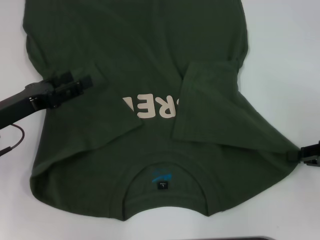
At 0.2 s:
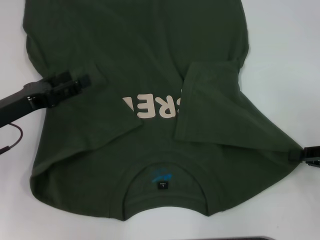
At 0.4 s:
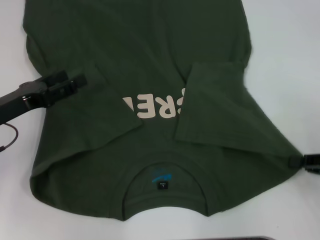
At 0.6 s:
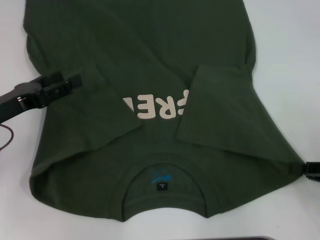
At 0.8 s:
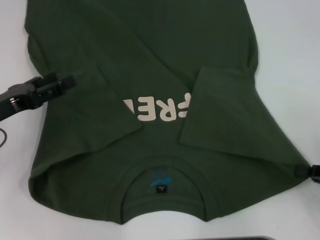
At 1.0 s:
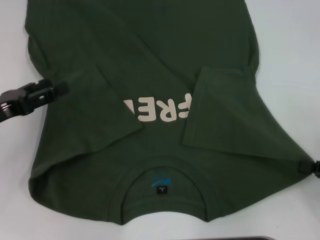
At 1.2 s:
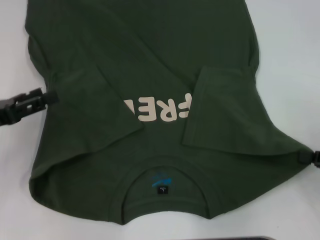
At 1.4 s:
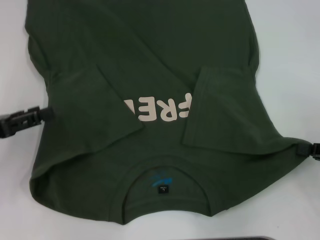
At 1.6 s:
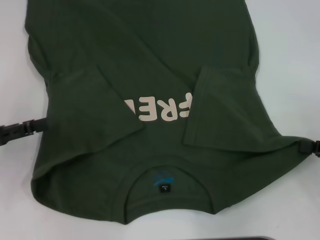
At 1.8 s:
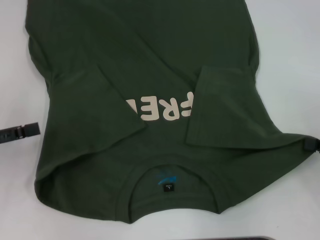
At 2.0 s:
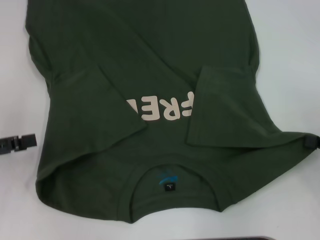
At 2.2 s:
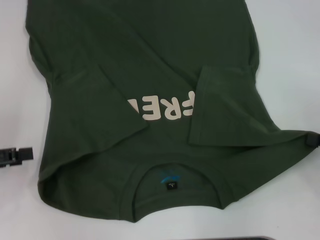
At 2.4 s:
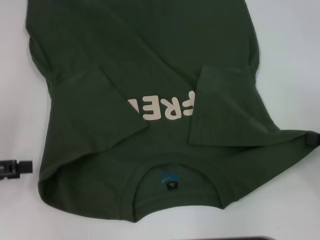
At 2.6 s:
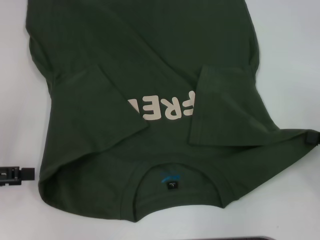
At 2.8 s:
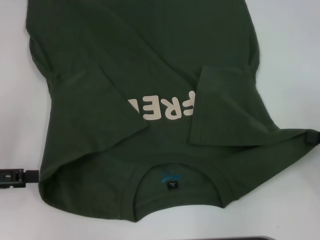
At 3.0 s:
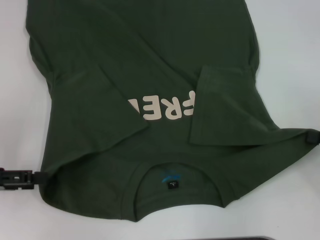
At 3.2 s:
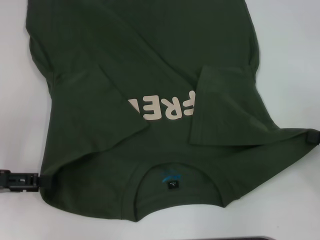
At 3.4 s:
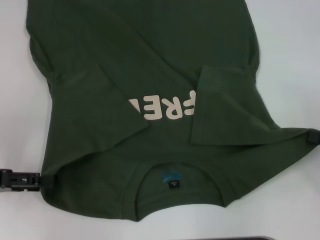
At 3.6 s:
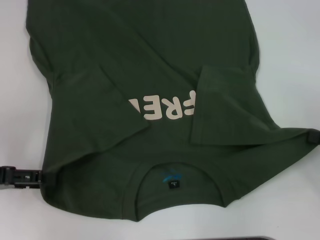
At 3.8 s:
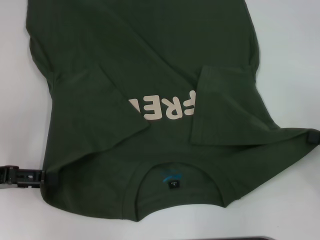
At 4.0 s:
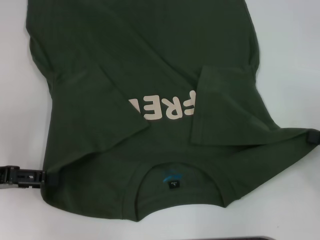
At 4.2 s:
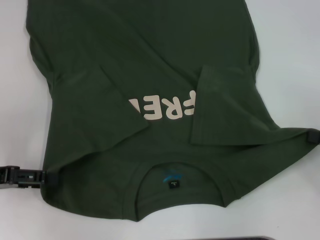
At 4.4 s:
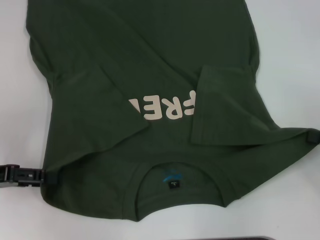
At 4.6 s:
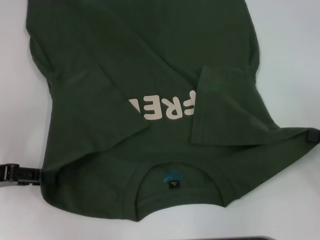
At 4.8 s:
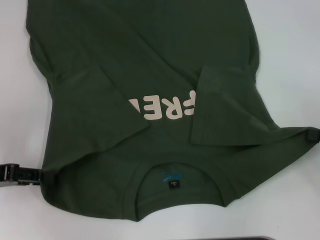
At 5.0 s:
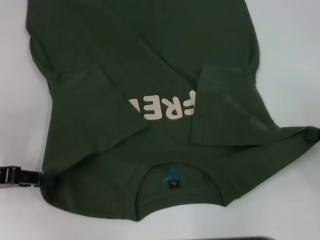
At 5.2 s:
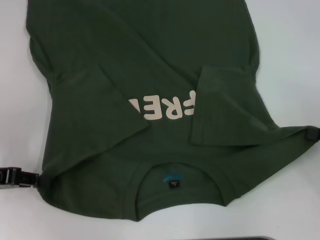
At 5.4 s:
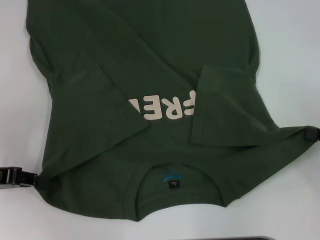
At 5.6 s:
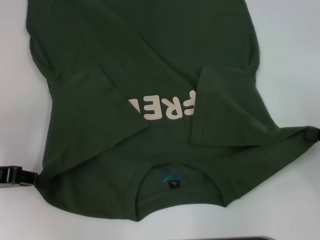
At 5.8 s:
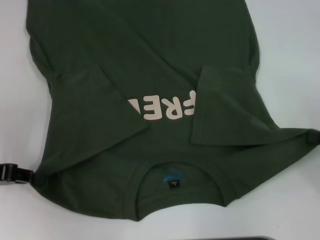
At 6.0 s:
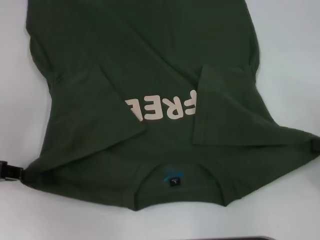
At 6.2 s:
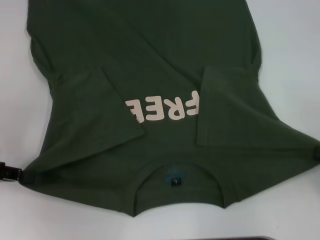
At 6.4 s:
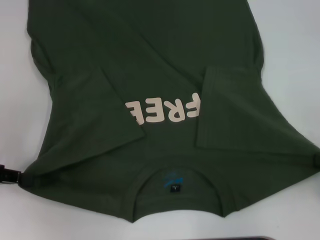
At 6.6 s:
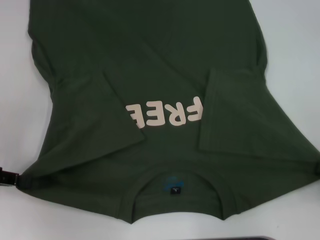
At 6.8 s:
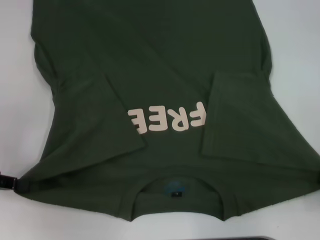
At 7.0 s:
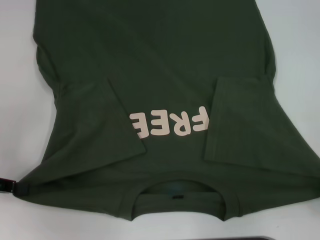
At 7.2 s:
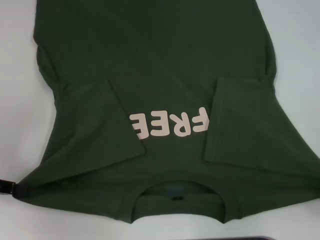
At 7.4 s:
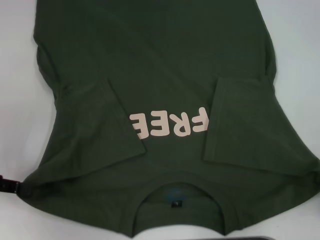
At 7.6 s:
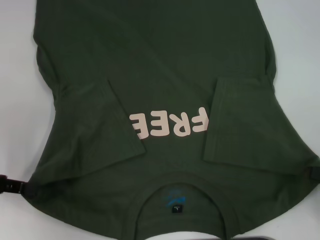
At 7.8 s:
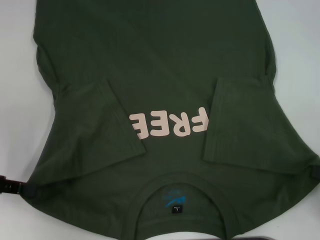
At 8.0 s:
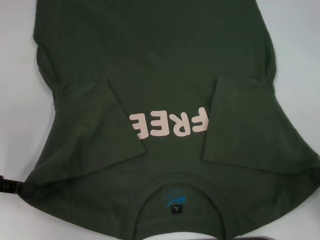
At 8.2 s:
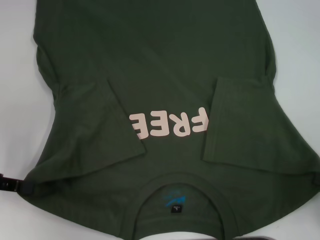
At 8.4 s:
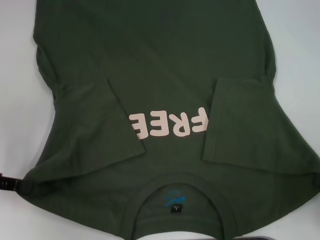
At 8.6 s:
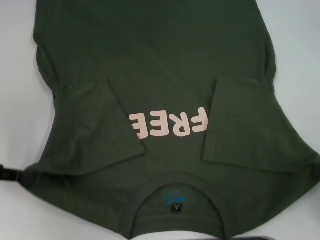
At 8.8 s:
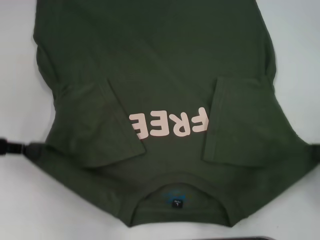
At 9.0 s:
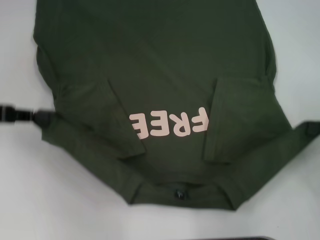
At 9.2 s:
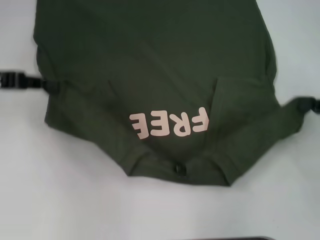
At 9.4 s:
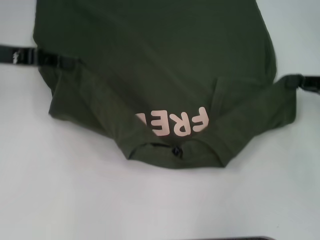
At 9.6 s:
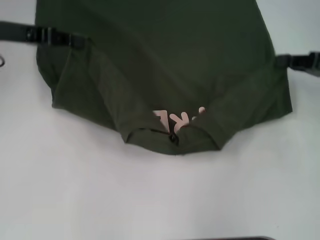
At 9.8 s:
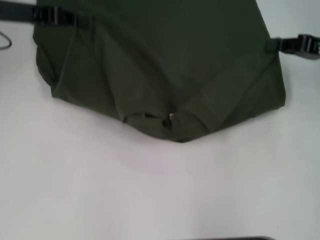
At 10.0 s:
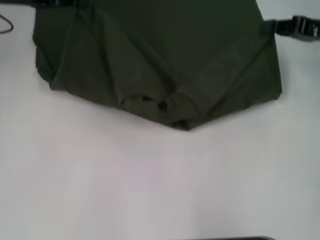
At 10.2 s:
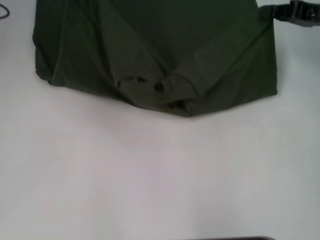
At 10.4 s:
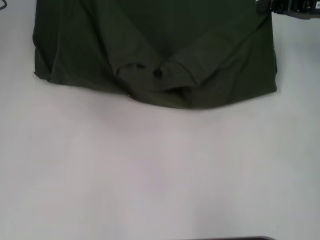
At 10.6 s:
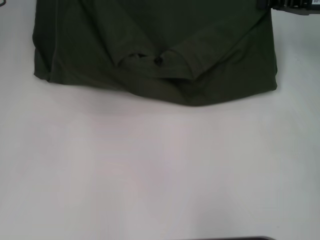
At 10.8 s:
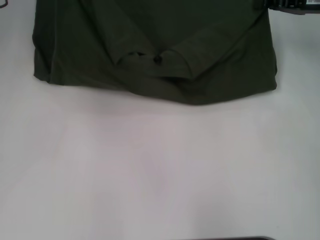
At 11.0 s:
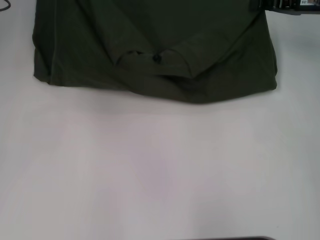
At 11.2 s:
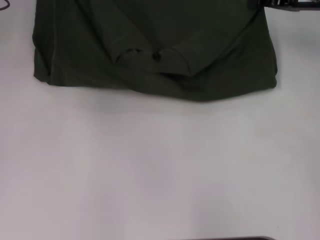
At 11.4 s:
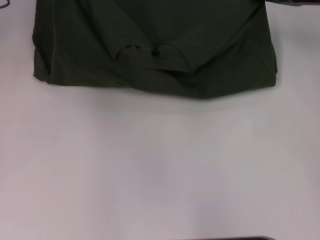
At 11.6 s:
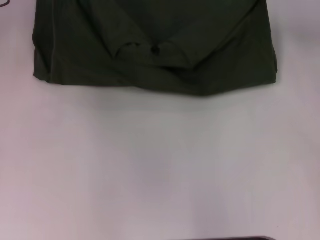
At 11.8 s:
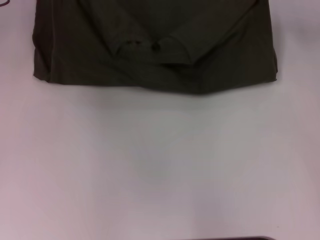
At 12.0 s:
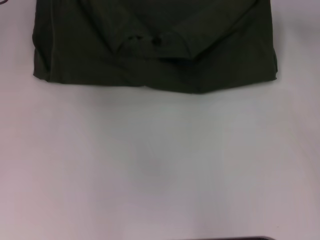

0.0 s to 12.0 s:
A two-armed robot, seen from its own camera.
Step, 0.2 to 5.2 s: Grab the bottom left corner with your left hand.
0.0 to 1.6 s: The left gripper moves to the left, roughly 5 cm.
3.0 to 4.4 s: The grippers make only small movements.
4.4 to 6.0 s: The left gripper closes up.
7.6 to 9.0 s: The left gripper moves approximately 5 cm. Meanwhile the right gripper travels forward by about 5 cm.
9.0 to 10.4 s: The right gripper heads forward and upward, covering some 20 cm. Meanwhile the left gripper heads forward, upward and to the right, covering approximately 15 cm.

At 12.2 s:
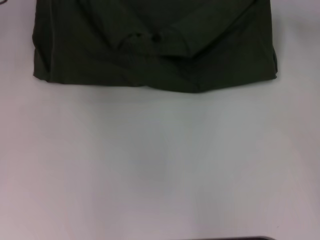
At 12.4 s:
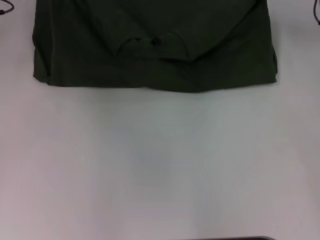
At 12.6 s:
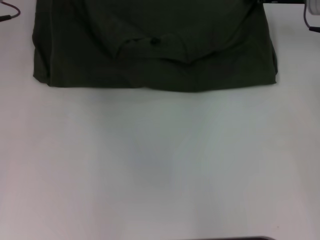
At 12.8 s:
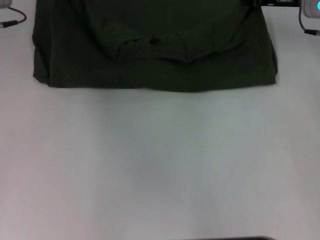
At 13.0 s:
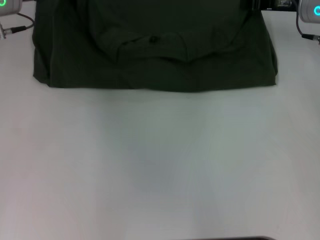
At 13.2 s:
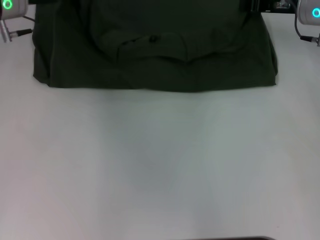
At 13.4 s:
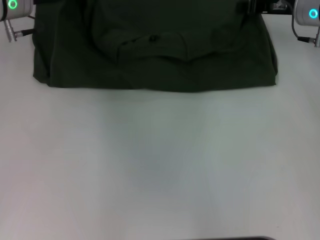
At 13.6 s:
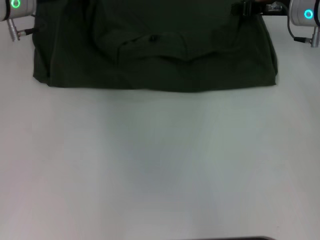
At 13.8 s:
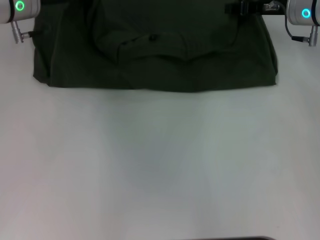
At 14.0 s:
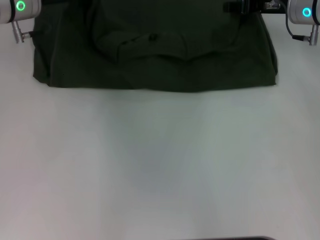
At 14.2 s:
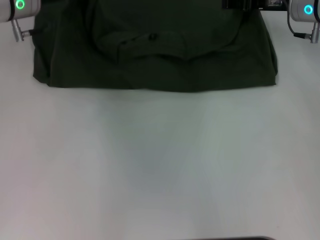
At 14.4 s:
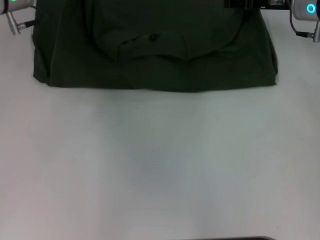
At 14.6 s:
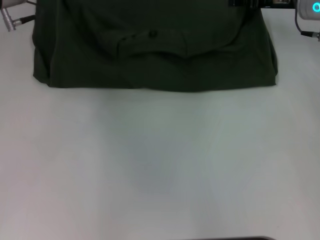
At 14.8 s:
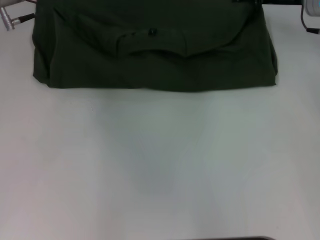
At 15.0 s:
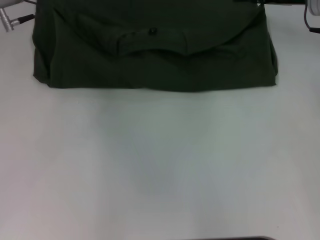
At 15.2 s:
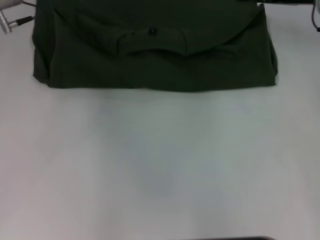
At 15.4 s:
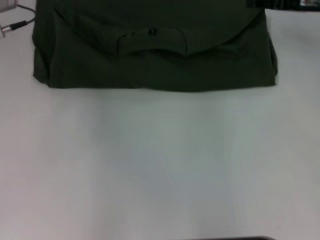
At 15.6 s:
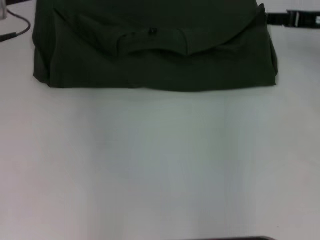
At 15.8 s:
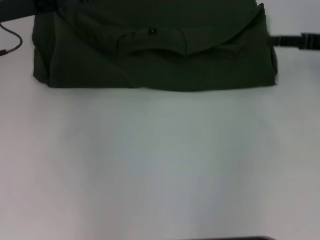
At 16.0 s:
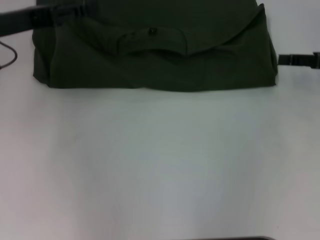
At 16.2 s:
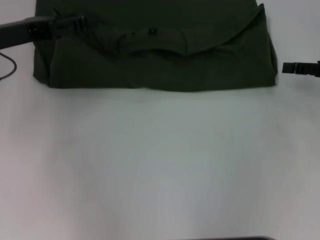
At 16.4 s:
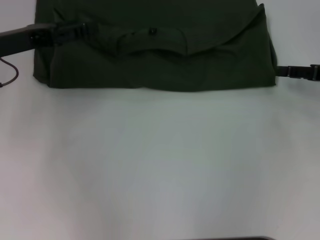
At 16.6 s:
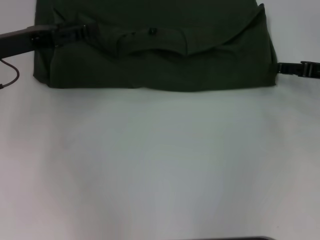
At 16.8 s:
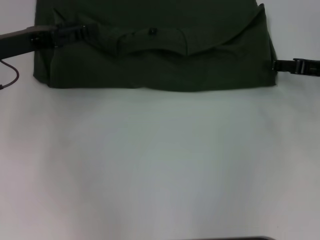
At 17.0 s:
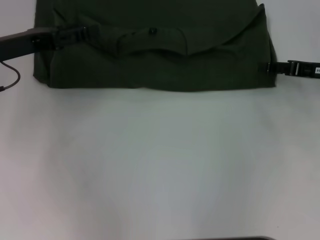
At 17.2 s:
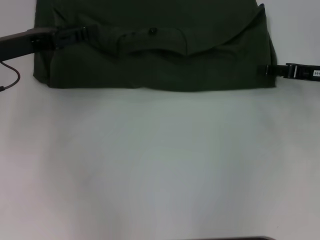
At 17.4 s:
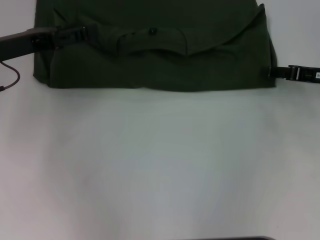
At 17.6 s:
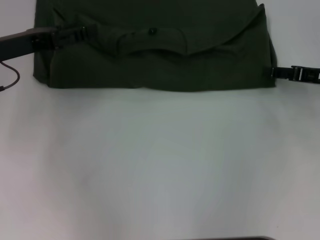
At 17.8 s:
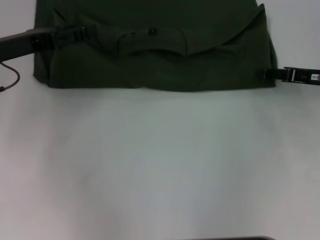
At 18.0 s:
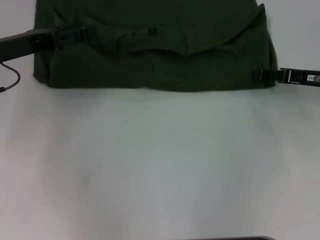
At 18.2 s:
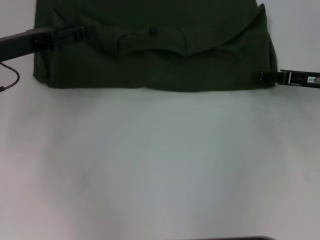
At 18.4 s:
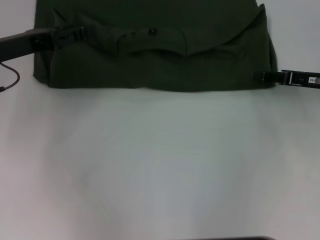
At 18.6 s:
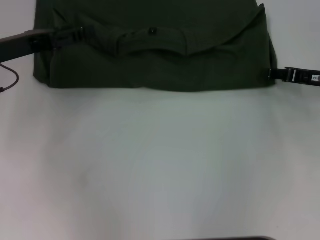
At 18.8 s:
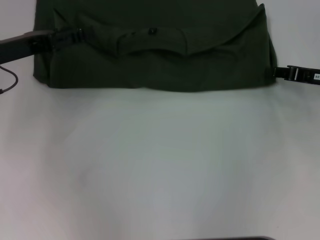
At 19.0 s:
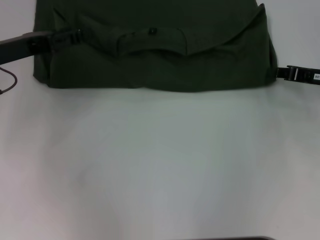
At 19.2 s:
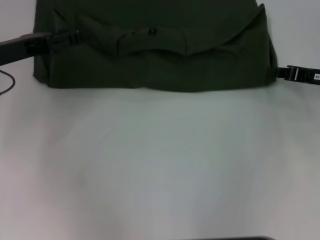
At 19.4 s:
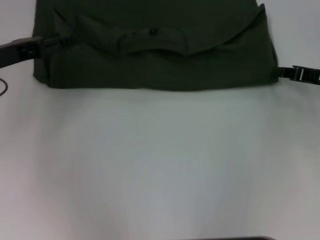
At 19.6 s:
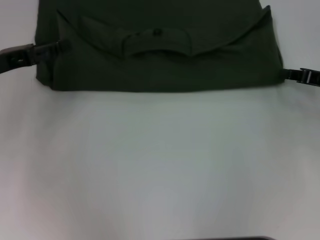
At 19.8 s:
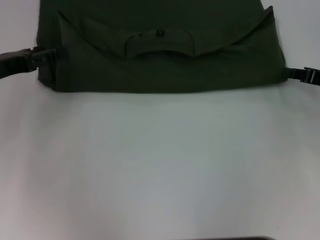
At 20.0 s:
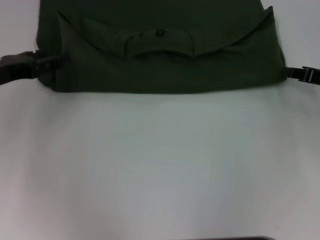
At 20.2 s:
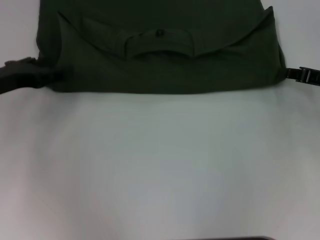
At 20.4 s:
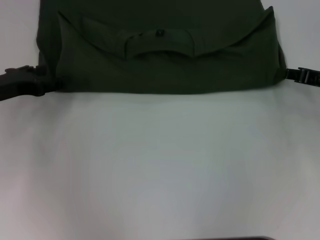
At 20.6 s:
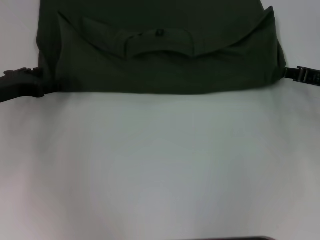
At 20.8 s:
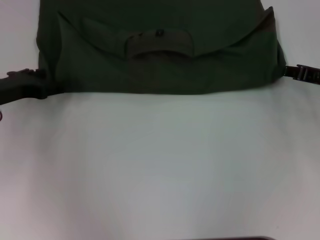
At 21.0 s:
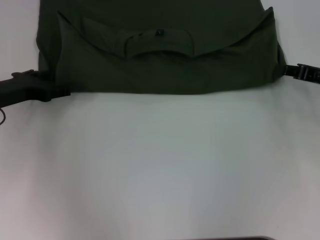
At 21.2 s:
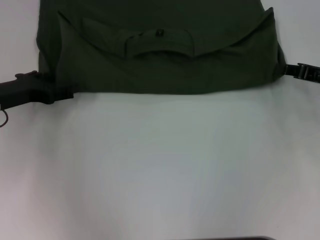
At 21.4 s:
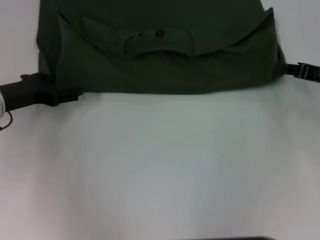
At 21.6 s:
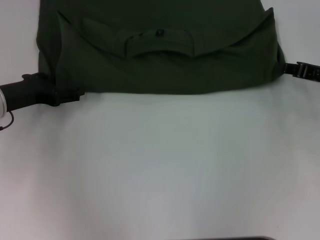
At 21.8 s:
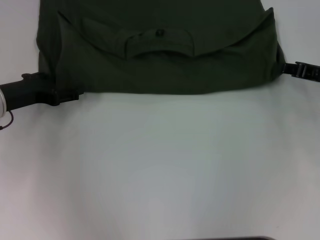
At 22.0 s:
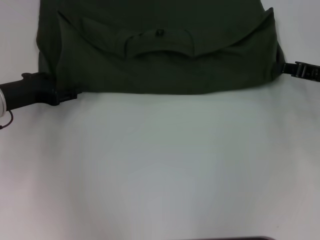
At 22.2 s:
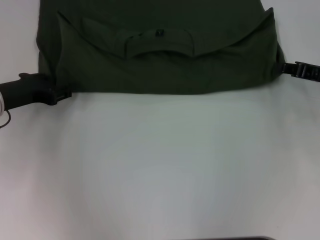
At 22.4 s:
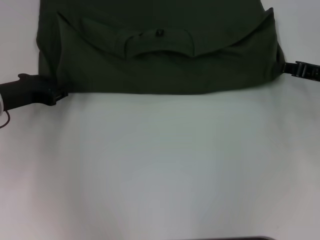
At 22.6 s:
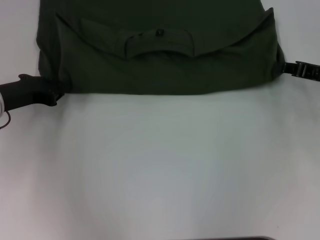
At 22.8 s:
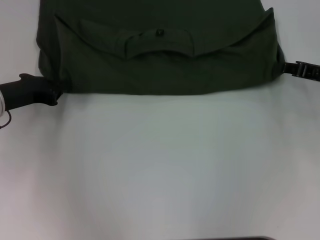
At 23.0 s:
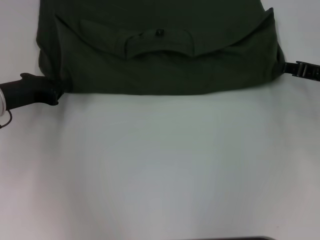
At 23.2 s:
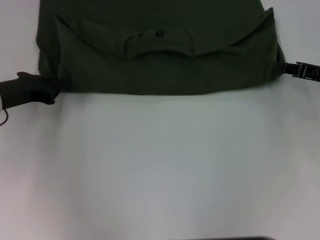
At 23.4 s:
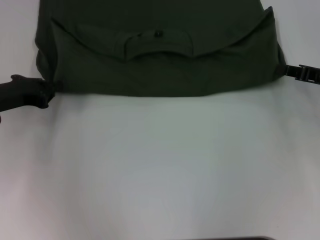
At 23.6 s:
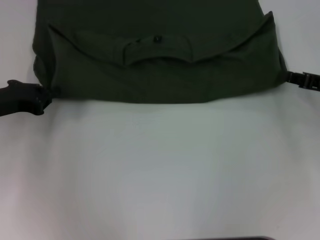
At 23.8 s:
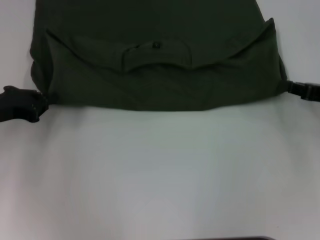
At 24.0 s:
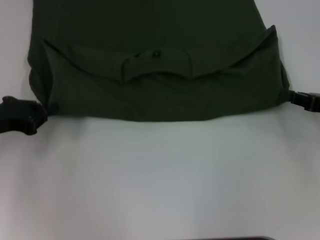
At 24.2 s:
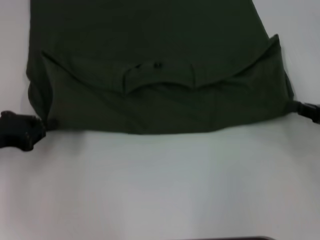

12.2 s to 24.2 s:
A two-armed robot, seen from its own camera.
Step, 12.2 to 14.2 s: Fold the clothes with your left hand.
Step, 12.2 to 14.2 s: Fold the clothes with your right hand.
12.2 to 13.8 s: The right gripper moves roughly 5 cm. The left gripper travels to the right by approximately 5 cm.
13.8 to 15.2 s: The left gripper opens up. Meanwhile the right gripper opens.
15.2 to 16.6 s: The right gripper shifts about 15 cm backward, to the right and downward. Meanwhile the left gripper travels backward by approximately 10 cm.
16.6 to 18.2 s: The grippers move only a little.
18.2 to 19.8 s: The right gripper closes up.
21.2 to 22.6 s: The left gripper closes its fingers.
22.6 to 24.2 s: The two grippers go some 5 cm backward.
